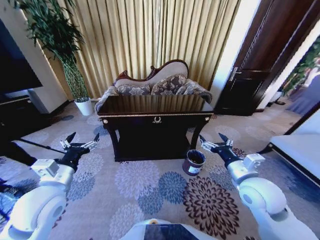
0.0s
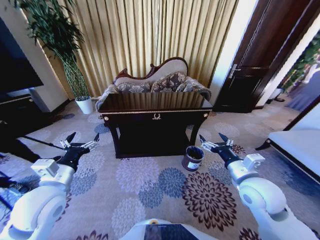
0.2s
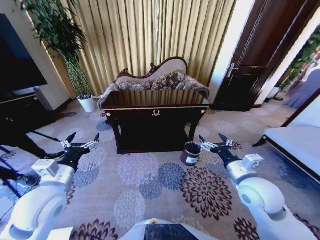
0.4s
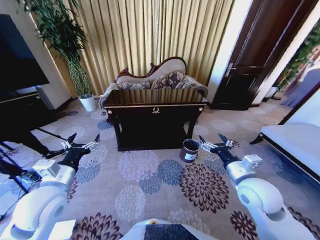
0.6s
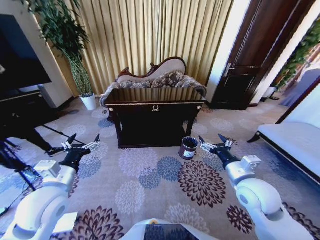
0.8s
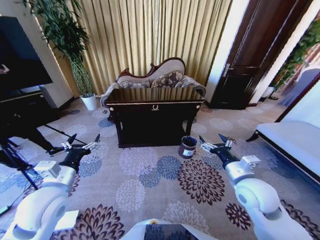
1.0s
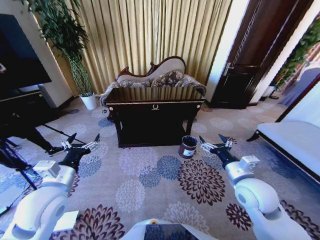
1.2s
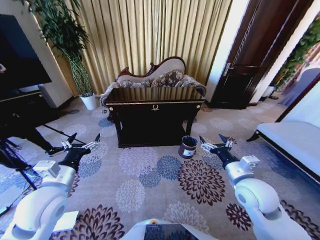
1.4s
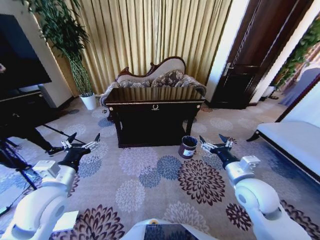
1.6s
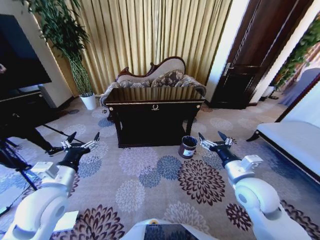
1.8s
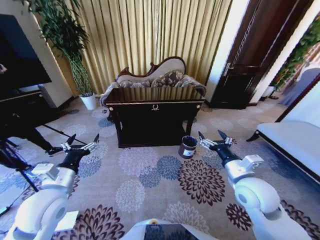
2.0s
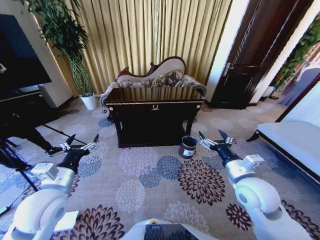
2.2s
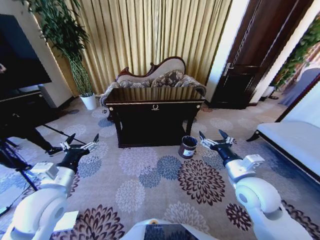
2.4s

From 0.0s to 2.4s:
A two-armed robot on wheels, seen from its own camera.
Task of the whole recording: Move to the front of the table and place the trash on the table into the trash bin.
From 1.2s to 2.4s: There are only small adjustments of the grippers.
